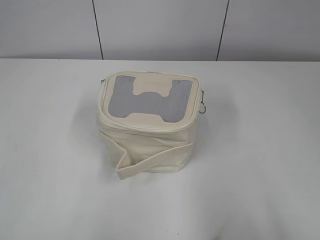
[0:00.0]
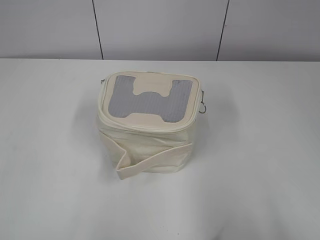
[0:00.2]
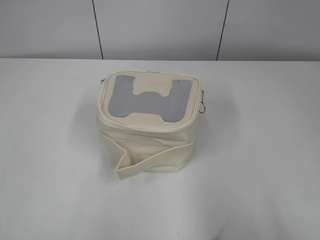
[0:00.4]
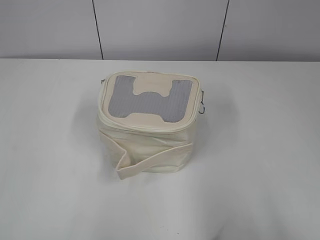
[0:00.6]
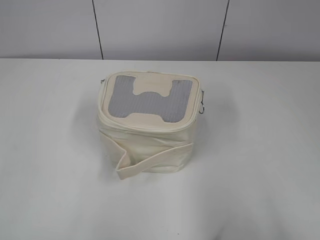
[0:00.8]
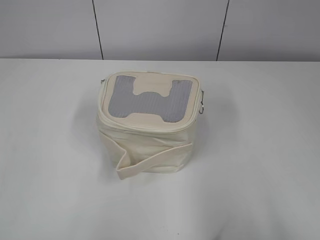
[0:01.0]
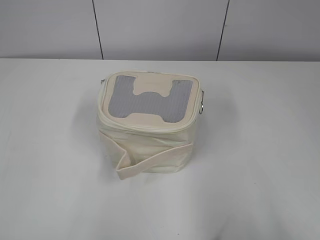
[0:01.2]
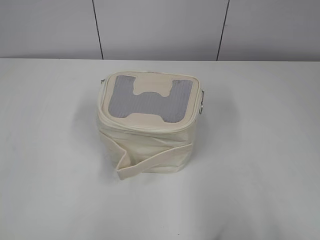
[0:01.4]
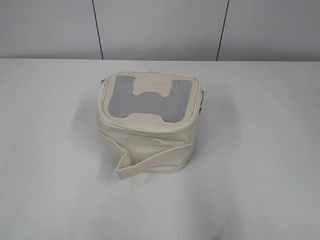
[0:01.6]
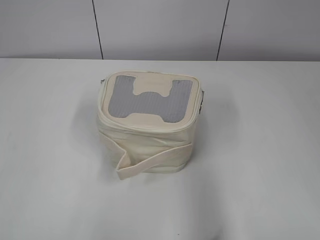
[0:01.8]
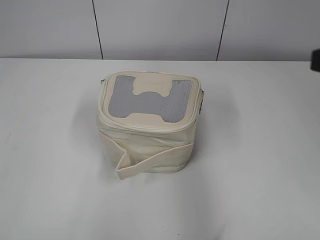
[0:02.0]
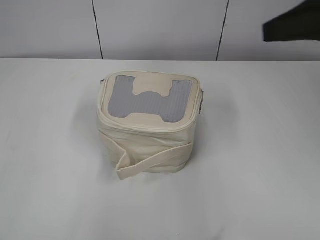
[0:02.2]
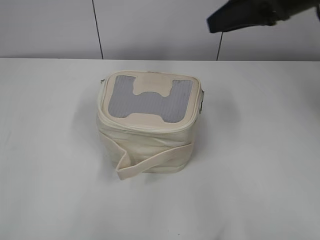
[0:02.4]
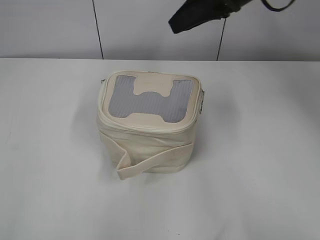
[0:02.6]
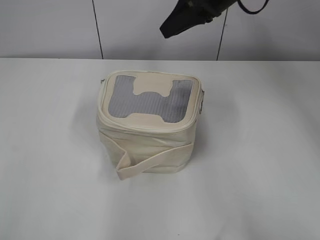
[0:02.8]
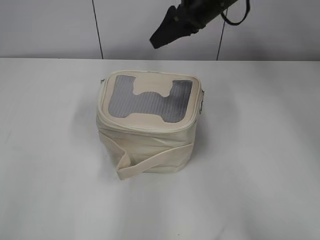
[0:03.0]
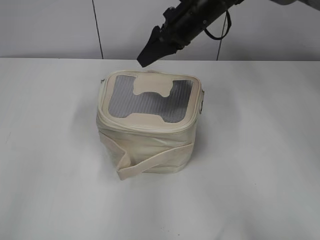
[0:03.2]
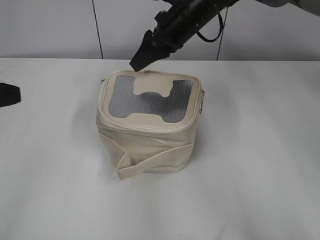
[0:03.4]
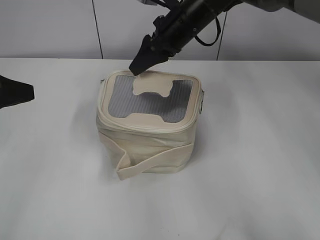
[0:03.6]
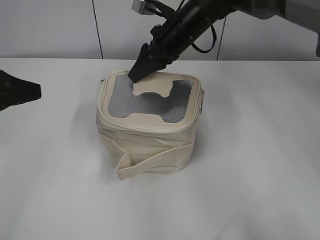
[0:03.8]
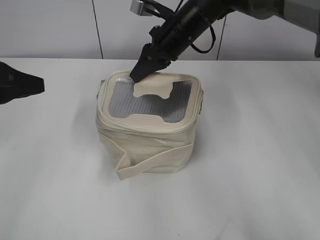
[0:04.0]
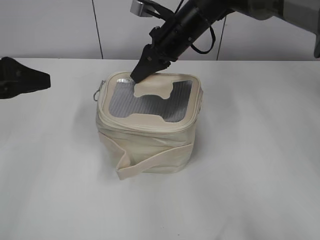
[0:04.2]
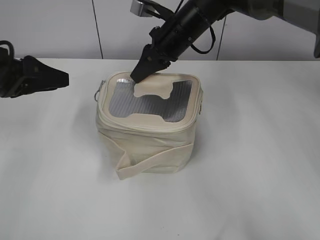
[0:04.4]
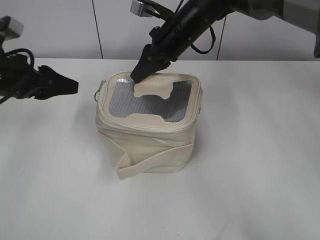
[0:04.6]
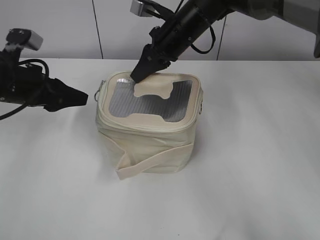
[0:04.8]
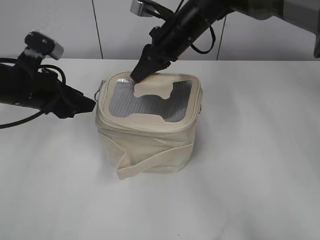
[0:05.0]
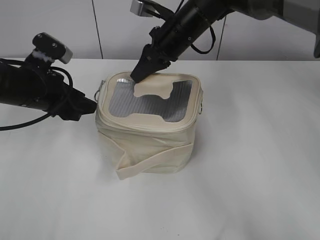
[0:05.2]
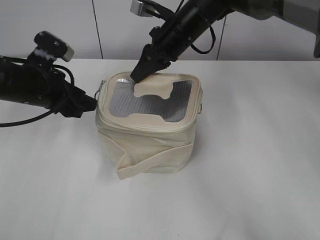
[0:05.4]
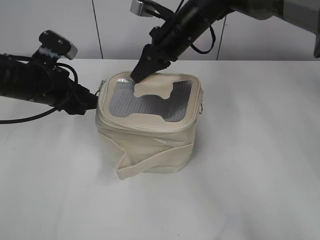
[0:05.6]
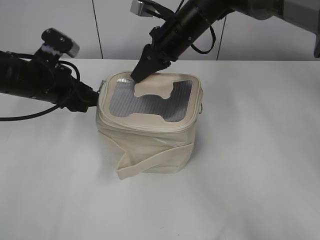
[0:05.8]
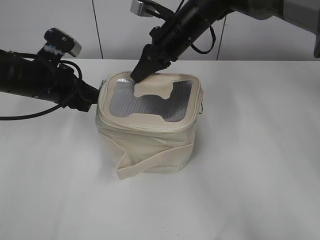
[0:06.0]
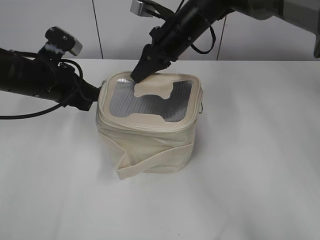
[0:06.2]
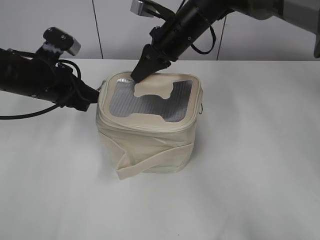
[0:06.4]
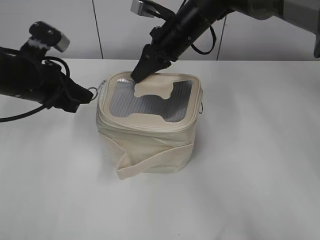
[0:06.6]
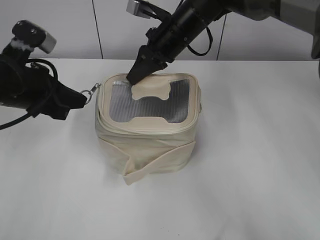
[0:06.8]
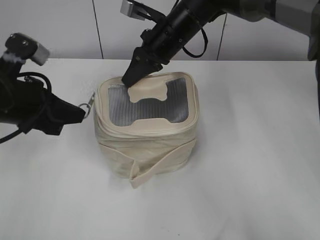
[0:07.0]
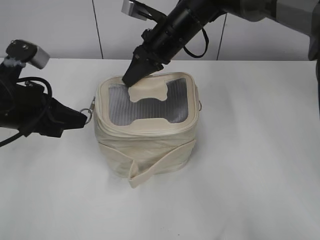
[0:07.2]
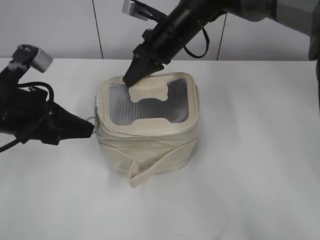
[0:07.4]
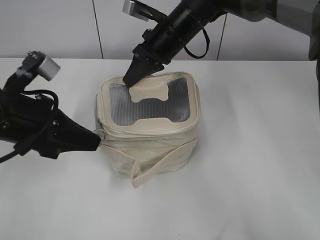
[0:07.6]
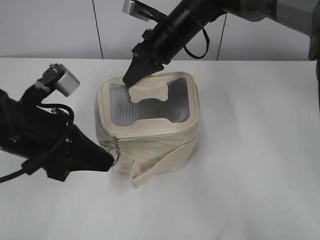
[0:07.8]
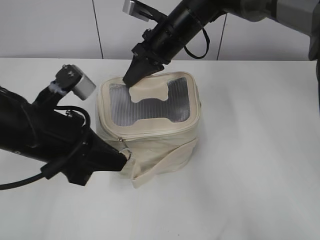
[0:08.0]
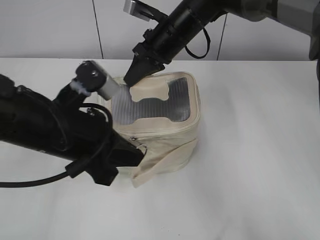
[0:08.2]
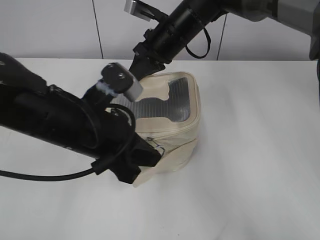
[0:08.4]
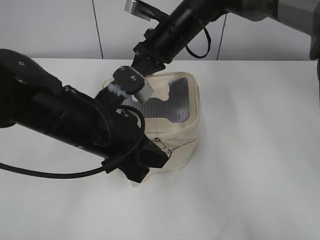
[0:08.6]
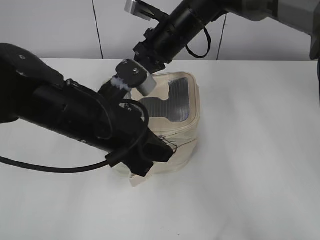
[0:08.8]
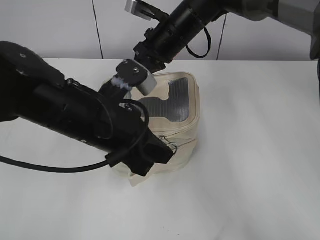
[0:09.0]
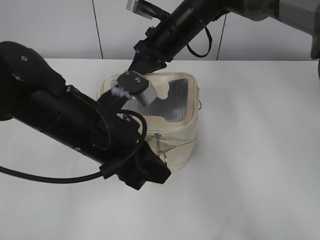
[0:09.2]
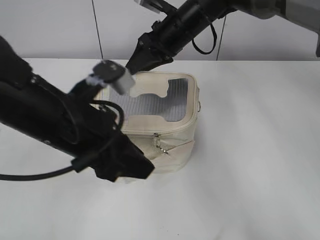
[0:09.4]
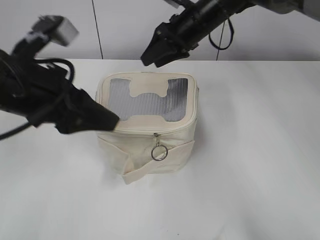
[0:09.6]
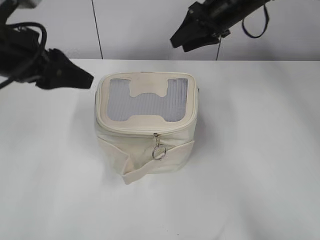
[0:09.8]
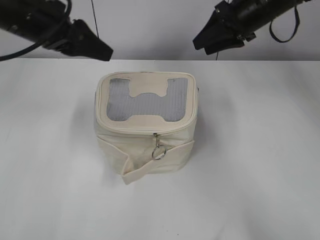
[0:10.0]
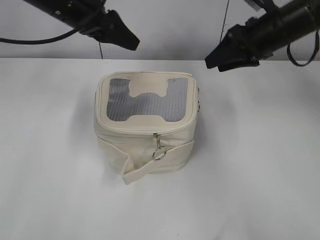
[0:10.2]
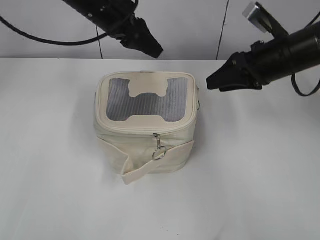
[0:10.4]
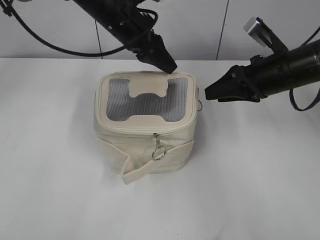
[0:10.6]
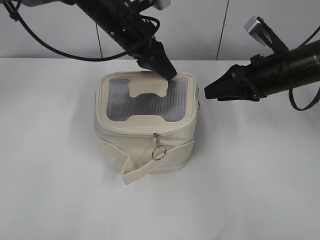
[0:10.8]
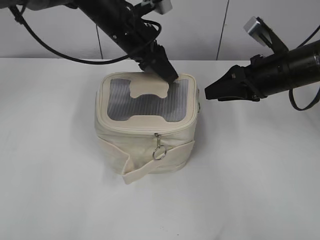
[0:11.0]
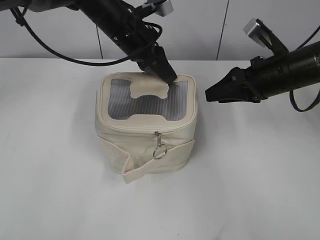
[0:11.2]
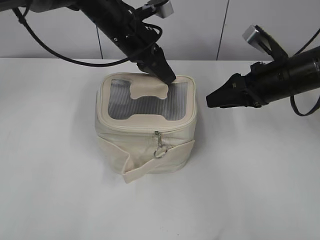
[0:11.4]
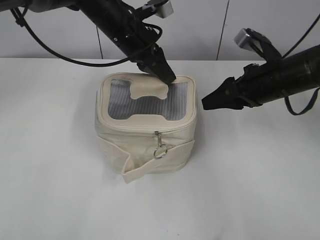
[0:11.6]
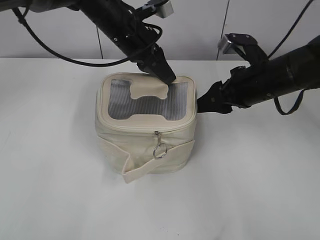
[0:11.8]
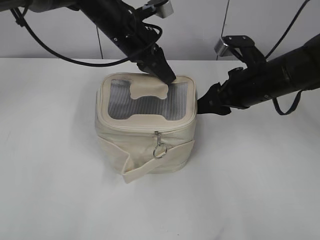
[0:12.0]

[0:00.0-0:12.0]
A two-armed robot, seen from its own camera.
Step, 0.0 to 9.0 s: Zip up the bag with your left hand.
Step, 9.2 to 9.4 s: Hold the bag with your right hand.
1.6 to 3.0 s: The left gripper travels forward by some 10 cm; the right gripper moves forward and to the left, about 50 cm.
3.0 to 4.4 s: The right gripper is displaced downward and to the left by some 10 cm, and closes its fingers, while the left gripper moves forward and downward, roughly 20 cm.
4.4 to 6.0 s: The left gripper goes approximately 10 cm forward, to the right and downward, and closes.
6.0 to 7.6 s: The left gripper goes some 10 cm backward, and closes.
7.6 to 9.0 s: The left gripper is displaced to the right by roughly 10 cm.
9.0 to 10.4 s: The right gripper moves to the right and backward, approximately 20 cm, and opens, while the left gripper shifts roughly 20 cm forward, and opens.
10.4 to 12.0 s: The left gripper changes place by approximately 5 cm, and closes up; the right gripper shifts by approximately 5 cm.

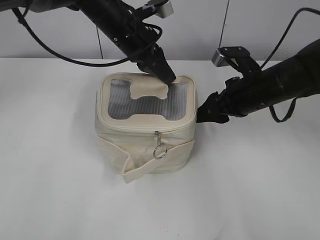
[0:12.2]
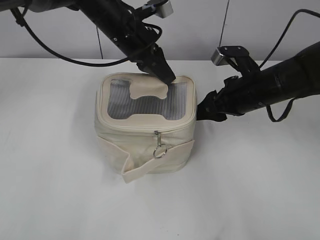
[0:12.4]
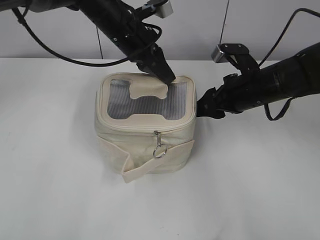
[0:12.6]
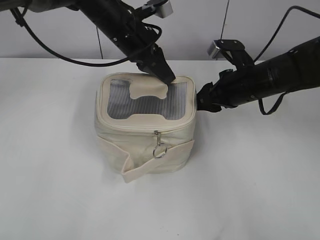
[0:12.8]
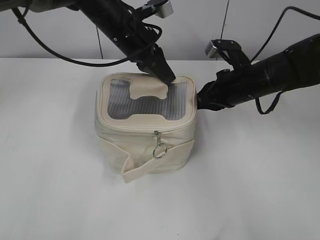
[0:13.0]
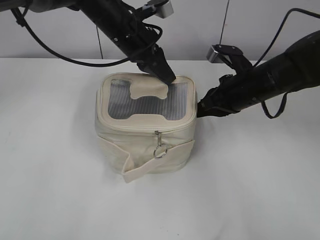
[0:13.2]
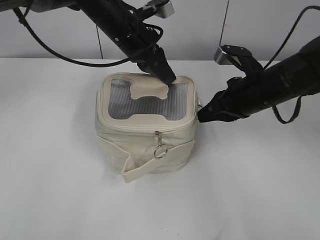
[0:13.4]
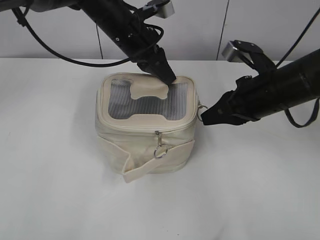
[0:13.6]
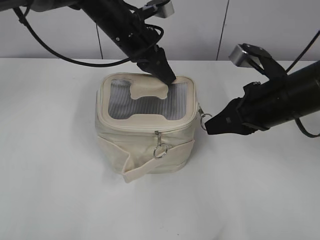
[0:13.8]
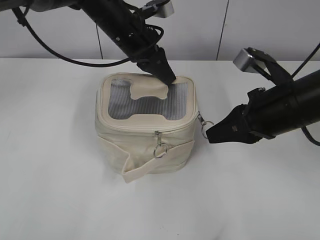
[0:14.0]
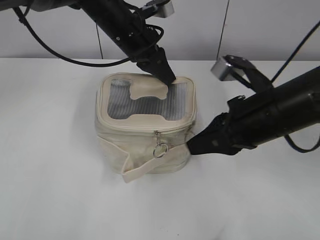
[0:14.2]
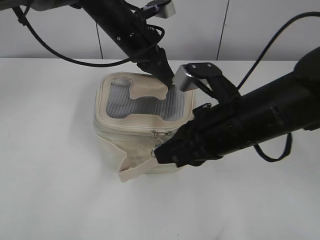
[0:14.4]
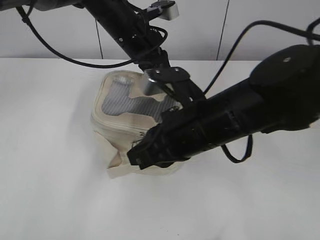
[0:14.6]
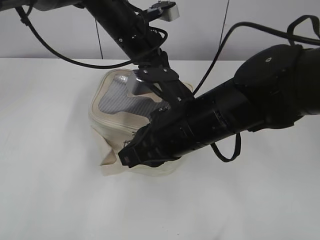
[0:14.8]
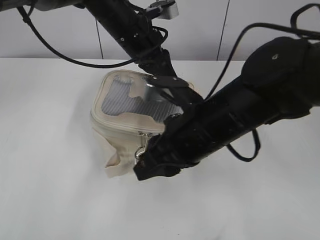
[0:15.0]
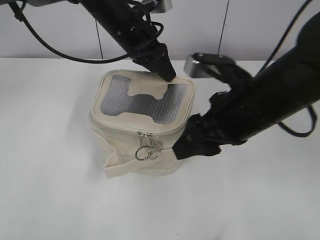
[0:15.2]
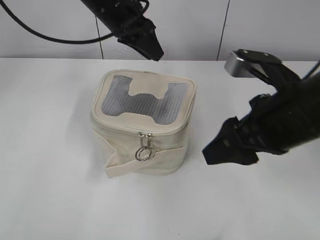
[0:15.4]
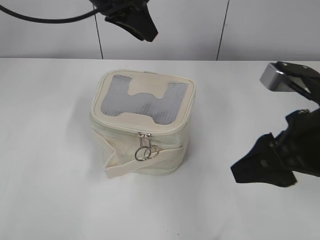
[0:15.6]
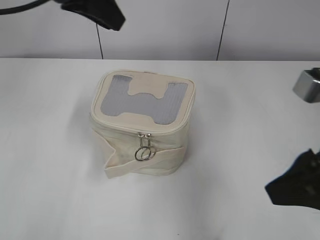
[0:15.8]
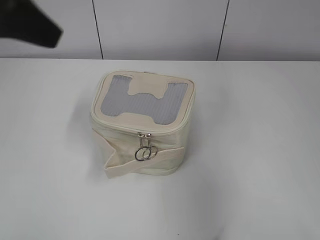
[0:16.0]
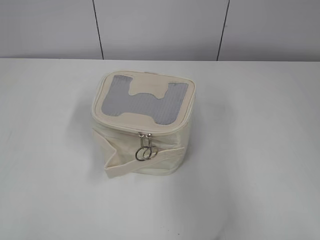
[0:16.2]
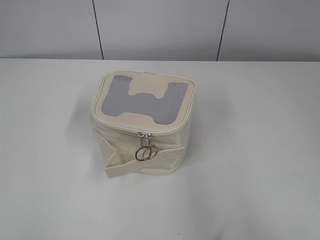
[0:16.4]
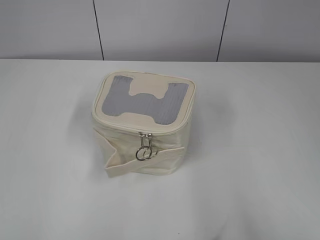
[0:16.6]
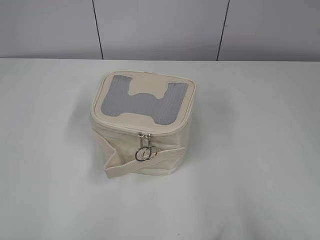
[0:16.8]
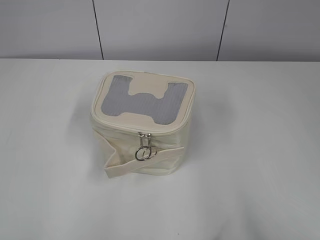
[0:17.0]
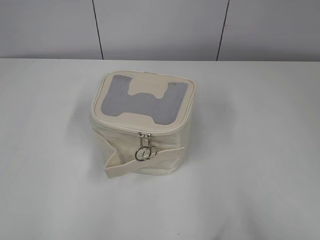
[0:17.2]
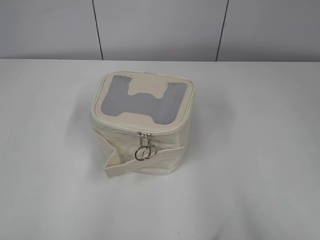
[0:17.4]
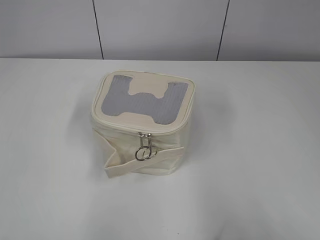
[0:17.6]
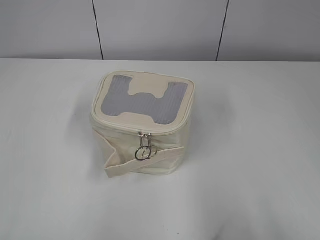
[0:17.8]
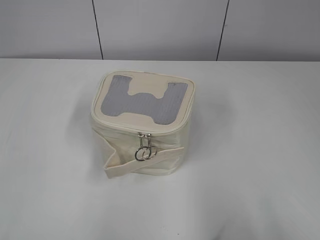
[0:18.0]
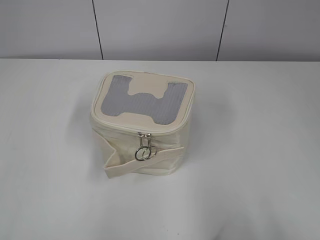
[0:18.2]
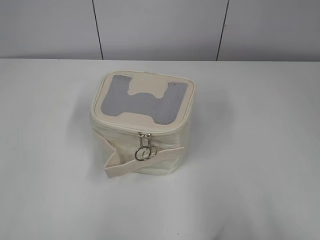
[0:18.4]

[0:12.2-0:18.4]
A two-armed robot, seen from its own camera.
Step, 12.2 to 14.8 s: Zip up the bag with your right hand.
Step, 15.0 to 15.2 s: Hold the bag with your left hand.
12.2 to 13.8 s: The right gripper moves backward, some 5 cm, and closes its fingers.
13.8 to 15.4 s: The left gripper opens up, while the right gripper goes roughly 5 cm backward, moves about 15 cm to the left and comes back, and opens its fingers.
15.4 to 16.8 s: The left gripper moves backward and to the left, approximately 50 cm. Meanwhile the right gripper goes about 25 cm backward and to the right.

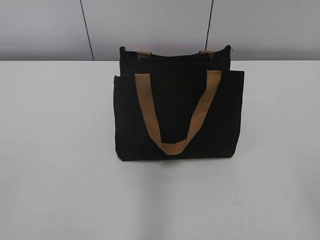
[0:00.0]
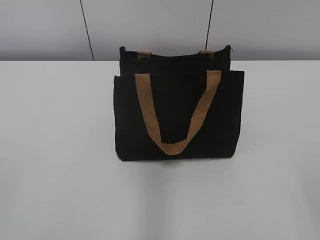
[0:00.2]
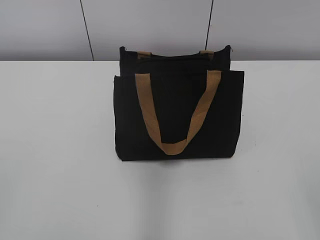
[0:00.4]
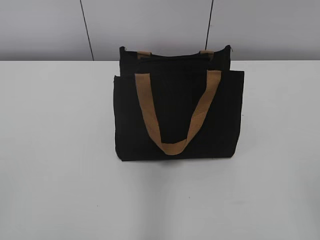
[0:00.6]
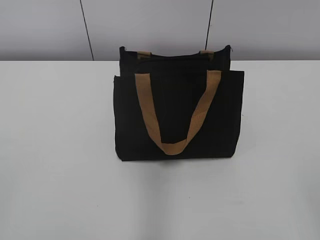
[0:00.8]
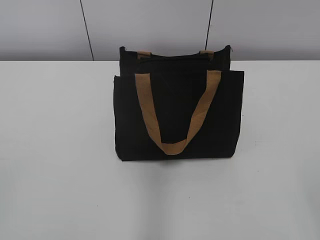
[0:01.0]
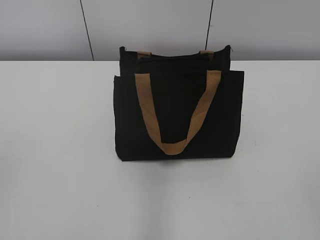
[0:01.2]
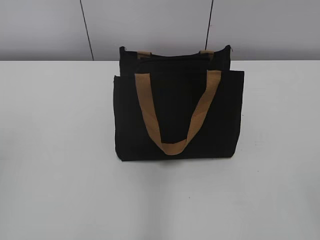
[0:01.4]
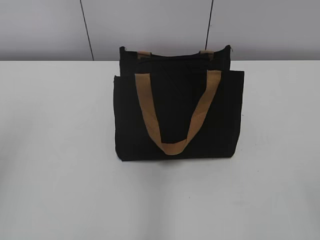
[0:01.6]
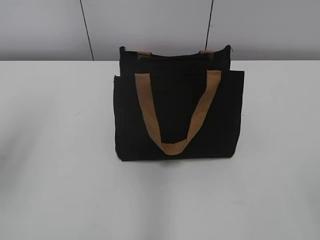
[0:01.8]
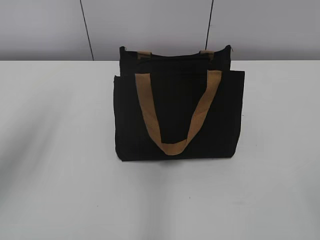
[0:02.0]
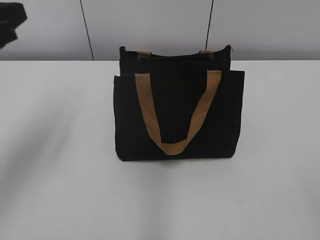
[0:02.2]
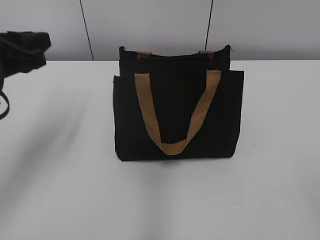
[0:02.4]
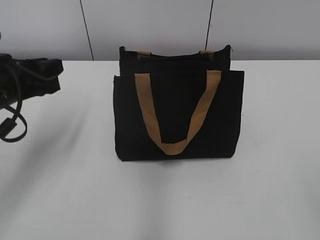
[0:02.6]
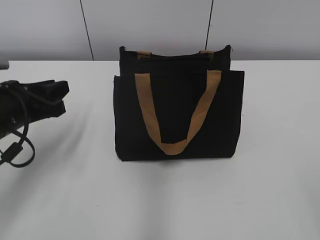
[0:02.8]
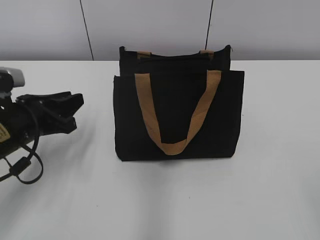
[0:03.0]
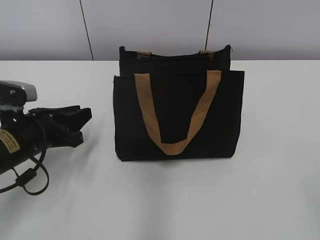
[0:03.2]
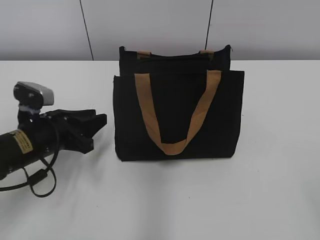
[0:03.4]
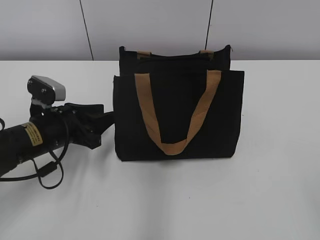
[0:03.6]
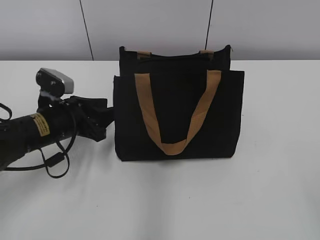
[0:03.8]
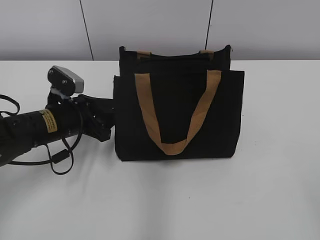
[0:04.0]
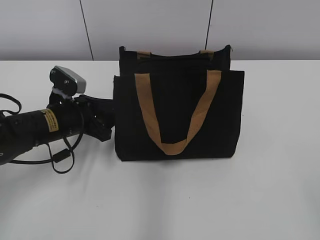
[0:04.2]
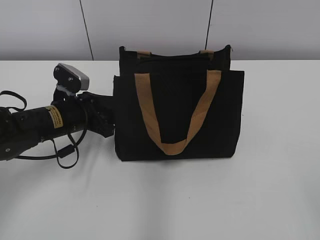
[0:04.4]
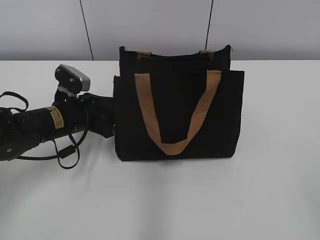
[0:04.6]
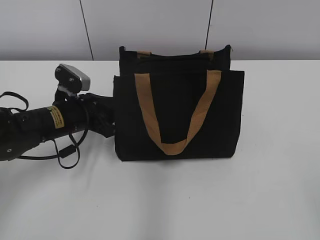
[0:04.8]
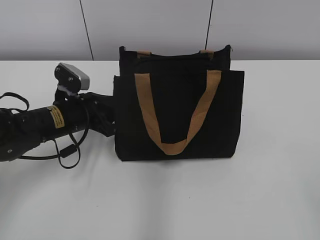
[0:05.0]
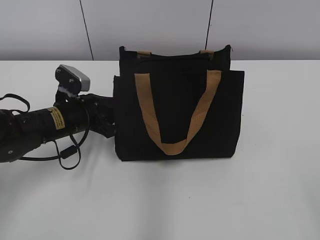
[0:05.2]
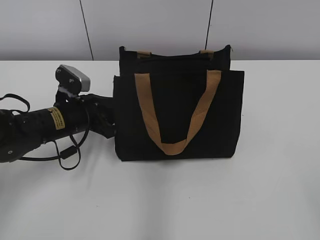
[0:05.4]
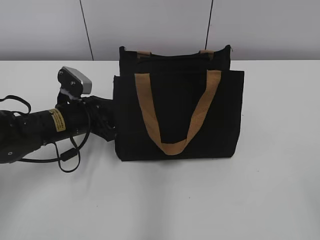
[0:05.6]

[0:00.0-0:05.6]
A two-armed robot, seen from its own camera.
1.4 to 2.8 s: The left gripper travels forward, downward and to the right by about 25 cm.
2.8 to 4.2 s: The left gripper goes some 10 cm downward, forward and to the right, and opens up.
4.2 to 5.6 s: The left gripper closes up.
